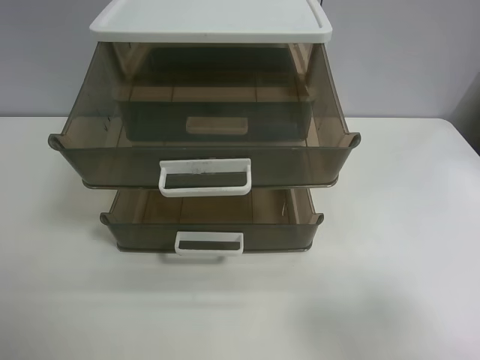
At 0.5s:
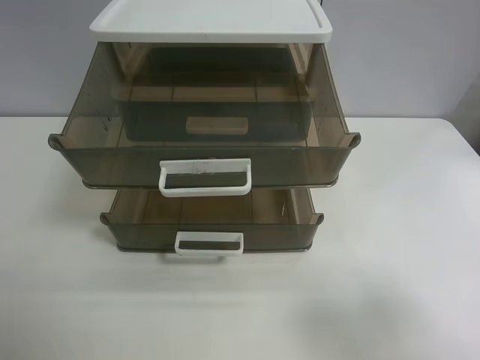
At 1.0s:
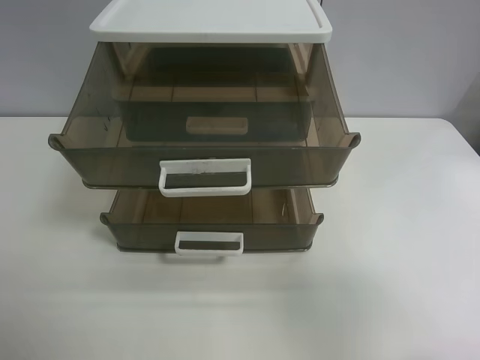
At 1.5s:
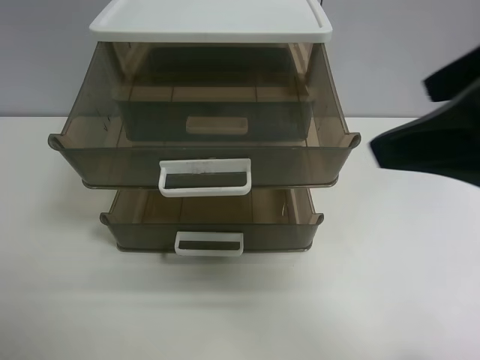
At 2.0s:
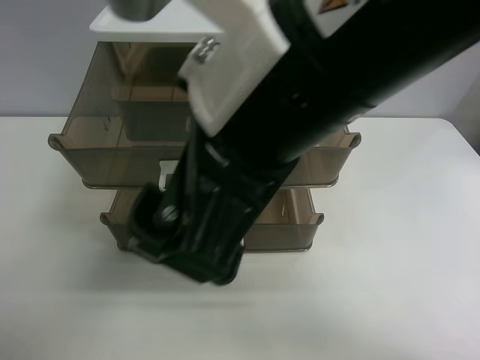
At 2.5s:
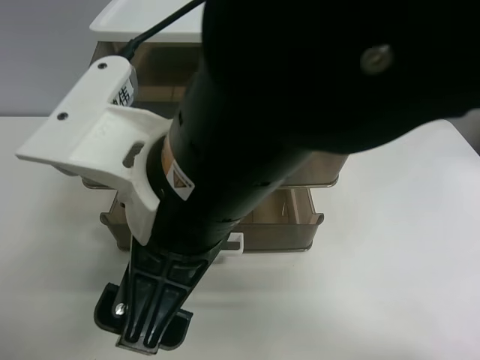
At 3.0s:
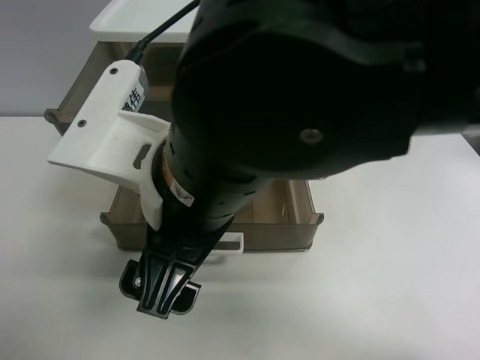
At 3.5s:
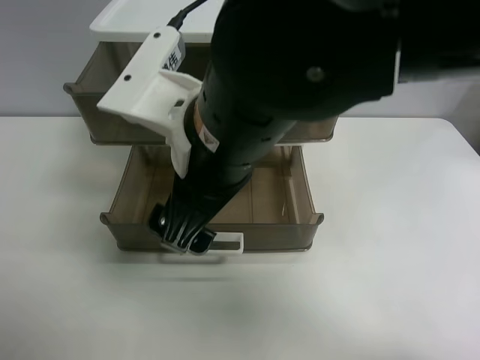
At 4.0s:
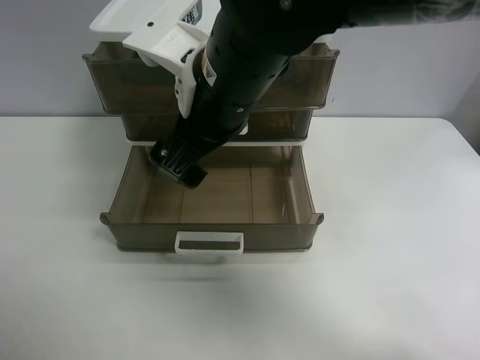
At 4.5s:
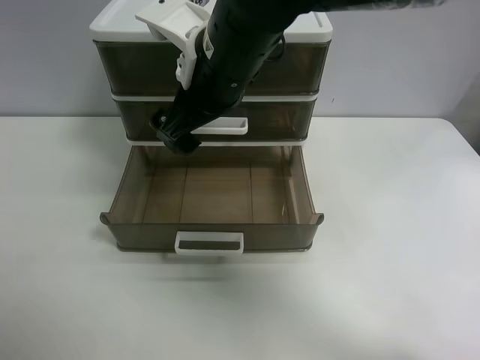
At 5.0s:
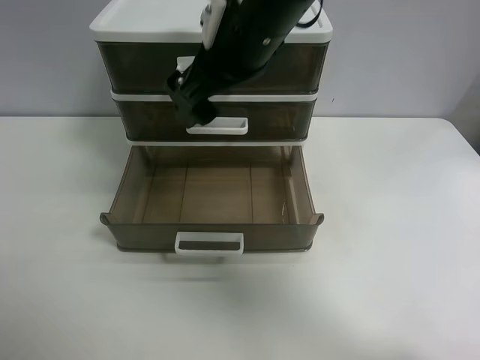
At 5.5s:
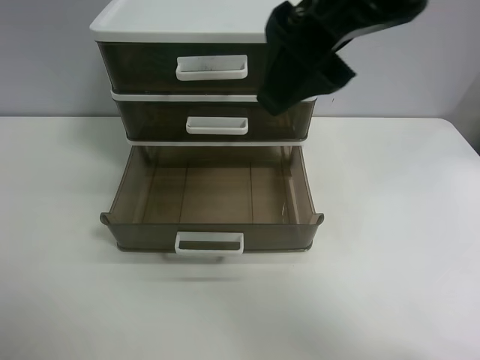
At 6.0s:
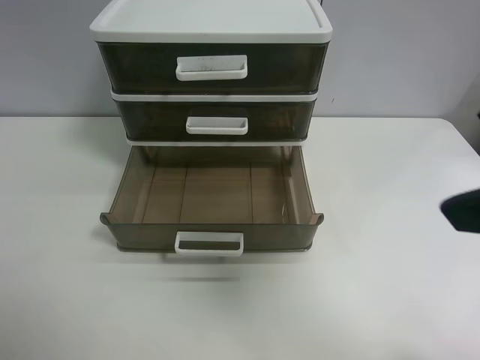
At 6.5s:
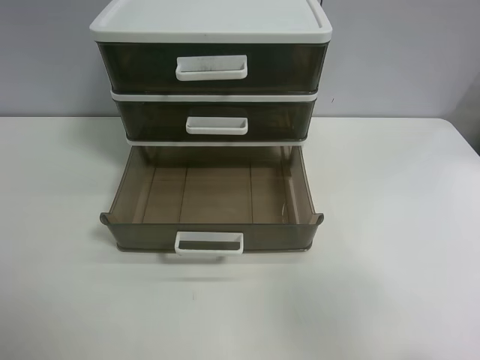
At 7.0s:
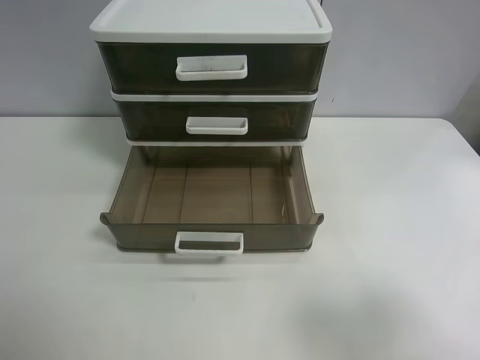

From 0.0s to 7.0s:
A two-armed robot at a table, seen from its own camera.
Task of the whole recording: close the top drawer.
Step, from 0.0s to 2.5s: Use the right gripper to touch the topmost layer of the storage cabinet.
Step, from 3.0s to 4.5s: Push the top drawer closed.
From 0.0s to 2.0s: The right gripper moves to the left and forward, some 30 cm.
From 2.0s to 3.5s: The right gripper heads downward and forward, covering approximately 10 cm.
From 3.5s to 5.0s: The right gripper goes some 10 cm forward and upward.
From 5.0s to 7.0s: The right gripper travels to the right and backward by about 35 cm.
